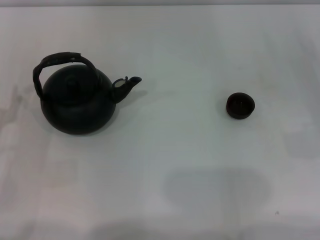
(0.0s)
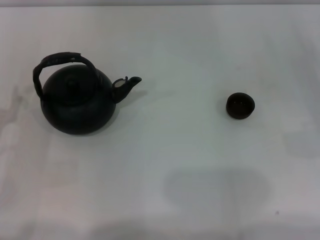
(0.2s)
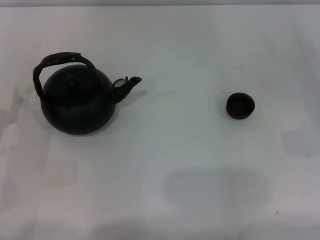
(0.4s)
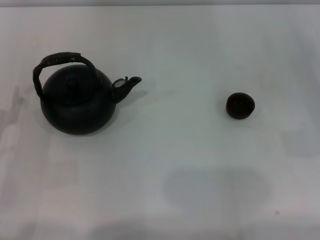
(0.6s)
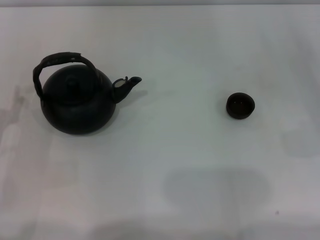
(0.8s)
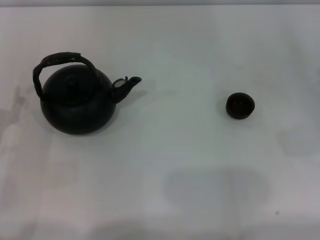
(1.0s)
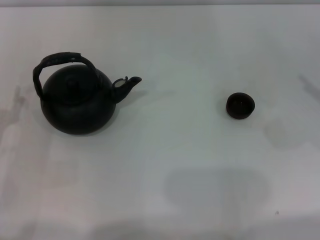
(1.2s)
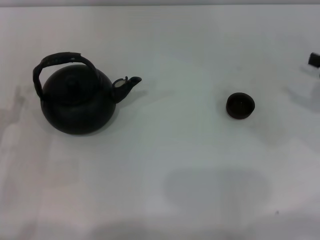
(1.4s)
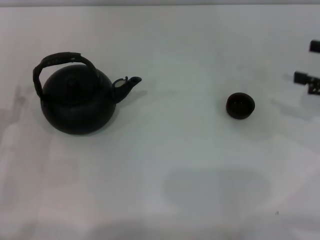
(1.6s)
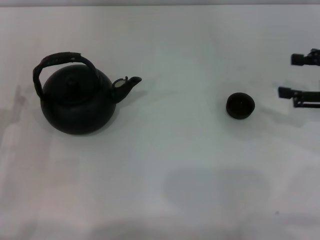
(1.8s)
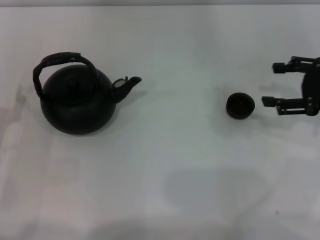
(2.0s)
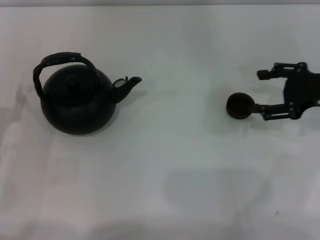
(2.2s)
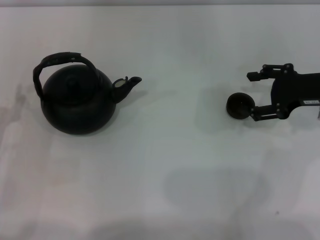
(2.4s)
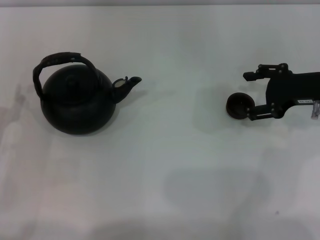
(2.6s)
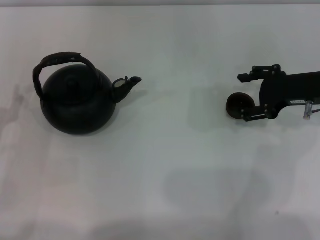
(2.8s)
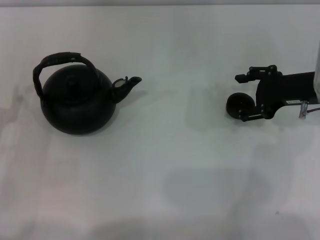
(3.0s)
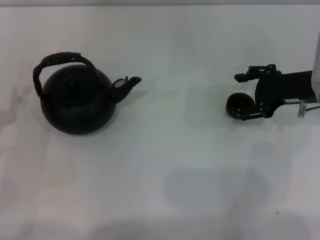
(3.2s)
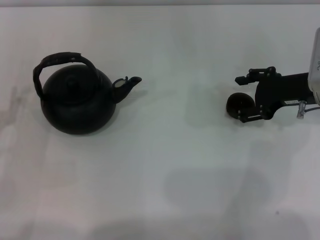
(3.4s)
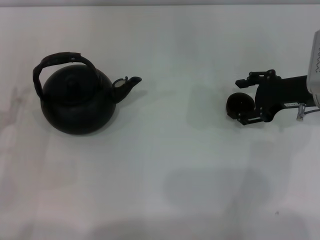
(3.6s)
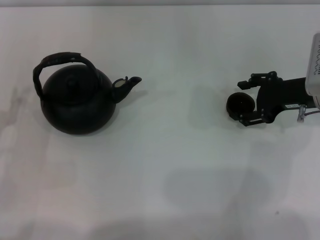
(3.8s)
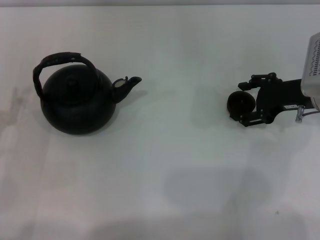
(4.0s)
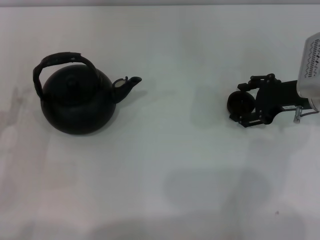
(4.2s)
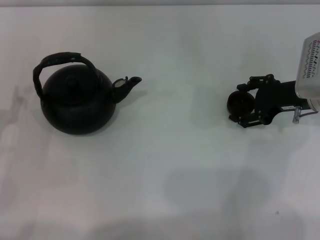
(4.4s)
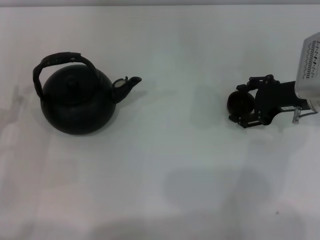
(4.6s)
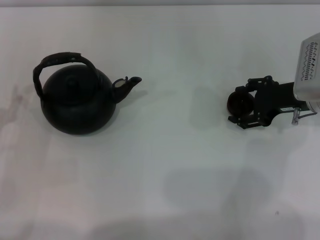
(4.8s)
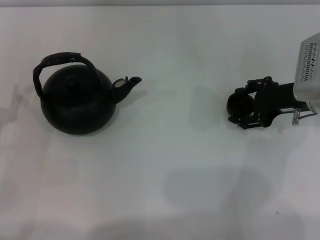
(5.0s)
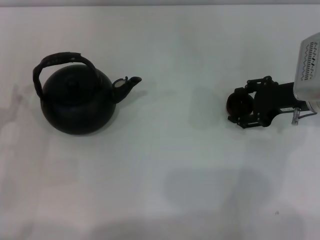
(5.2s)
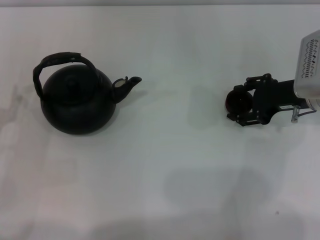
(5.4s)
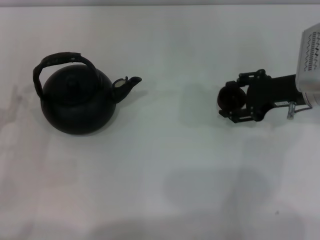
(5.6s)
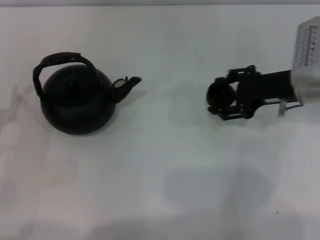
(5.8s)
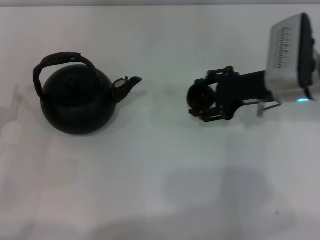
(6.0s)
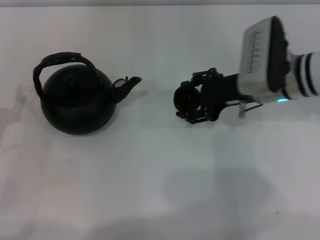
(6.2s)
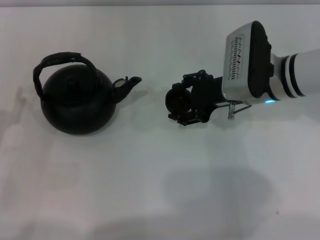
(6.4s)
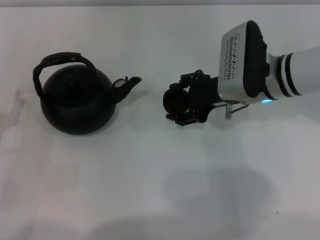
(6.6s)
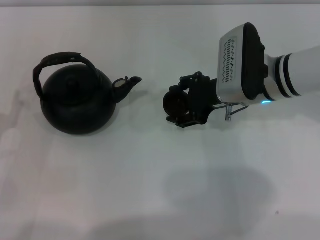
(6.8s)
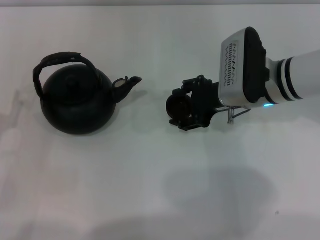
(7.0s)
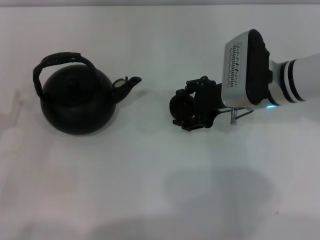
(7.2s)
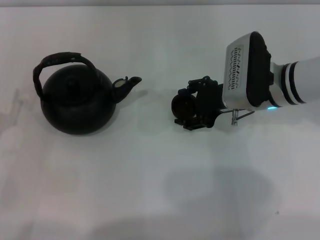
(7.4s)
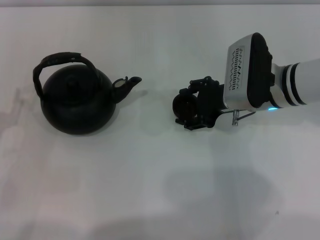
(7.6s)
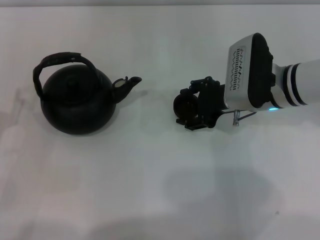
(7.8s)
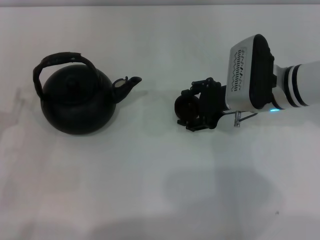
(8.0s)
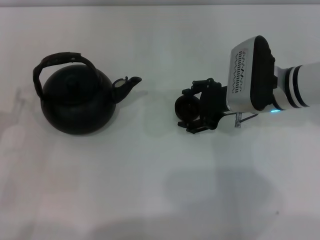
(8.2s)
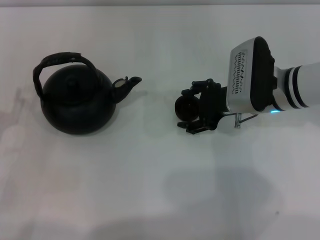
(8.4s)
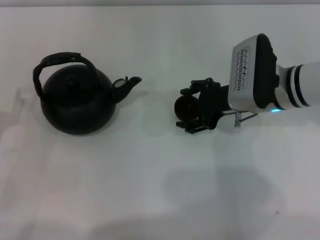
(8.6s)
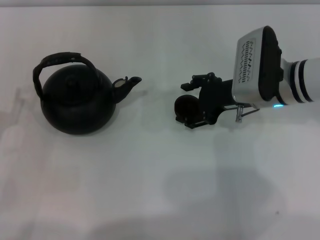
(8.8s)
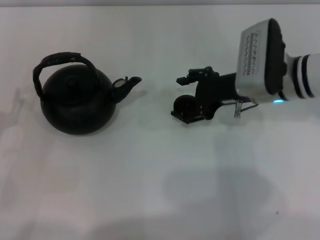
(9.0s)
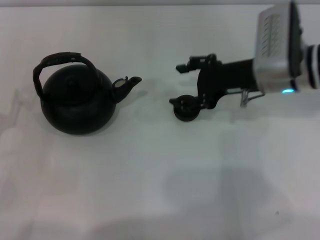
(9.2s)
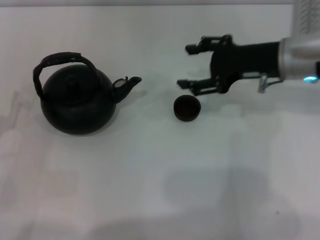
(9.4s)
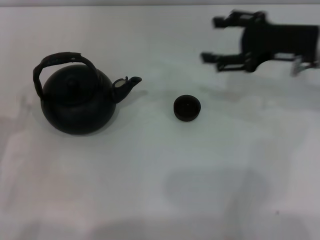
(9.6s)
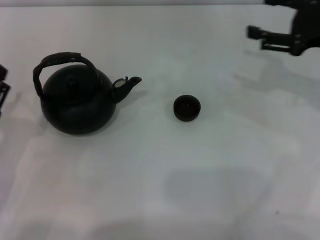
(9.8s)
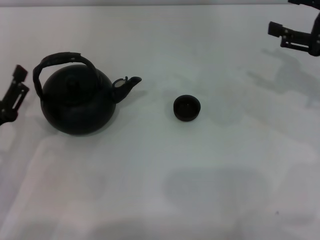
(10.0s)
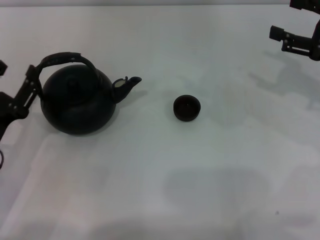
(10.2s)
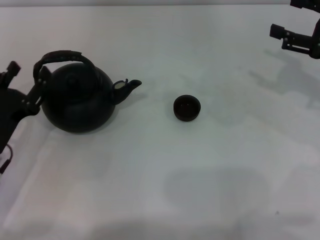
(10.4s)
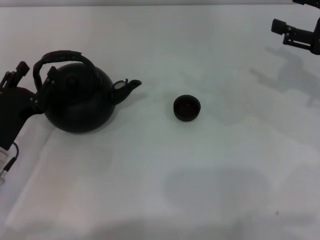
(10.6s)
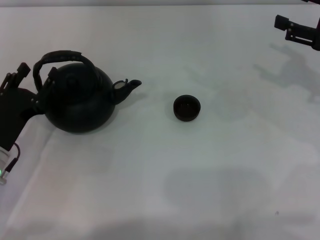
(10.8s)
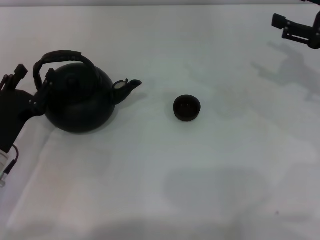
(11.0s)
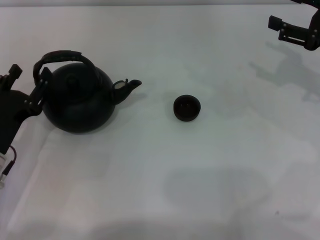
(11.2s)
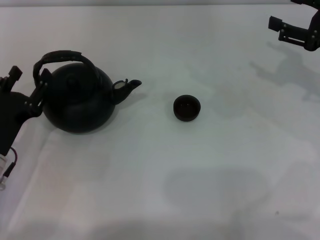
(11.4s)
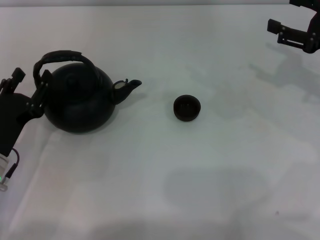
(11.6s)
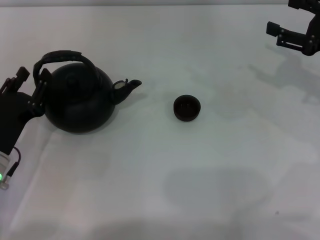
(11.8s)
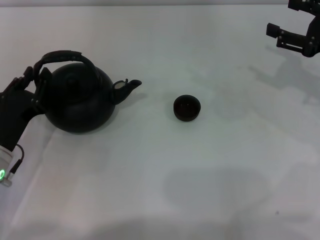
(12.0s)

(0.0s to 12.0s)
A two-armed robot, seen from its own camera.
Task of the whole recording: Grasp the handle of the teapot with one hand and pour tea into the teacup.
Step, 0.0s - 5.6s: Pick up the teacup with the right gripper.
Step, 5.8s - 9.2s: Place the teacup in the center of view with the right gripper.
0.0s - 1.6s: The right gripper travels upward by some 10 cm.
1.6s - 3.0s: The right gripper is displaced to the left and forward by approximately 10 cm.
3.0s - 4.4s: There are only small adjustments of the grippers.
4.4s - 6.0s: The right gripper goes about 5 cm to the left.
6.0s - 9.0s: There are only small adjustments of the grippers.
9.0s - 10.4s: The left gripper moves approximately 5 cm; the right gripper shifts about 15 cm to the right.
10.4s - 12.0s: The left gripper closes its fingers.

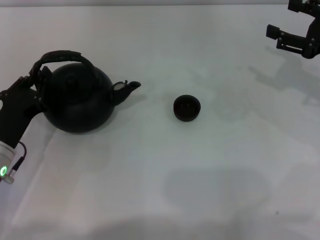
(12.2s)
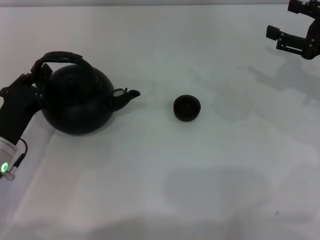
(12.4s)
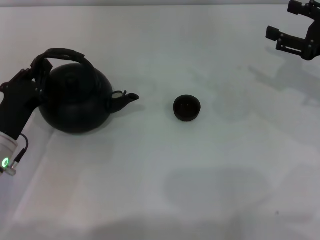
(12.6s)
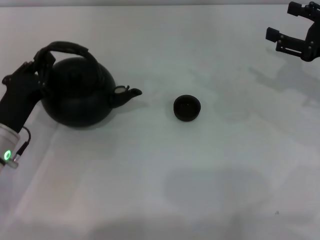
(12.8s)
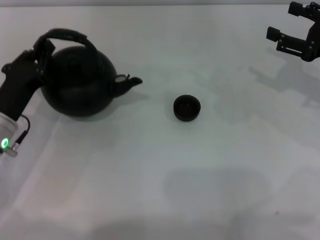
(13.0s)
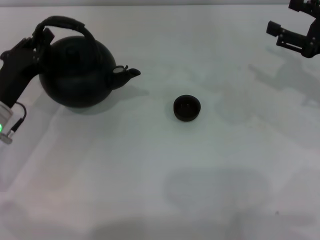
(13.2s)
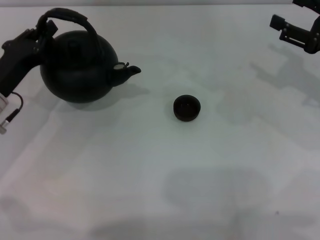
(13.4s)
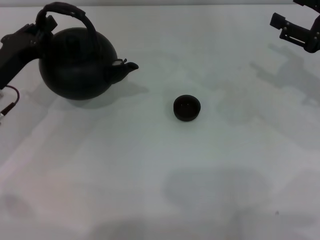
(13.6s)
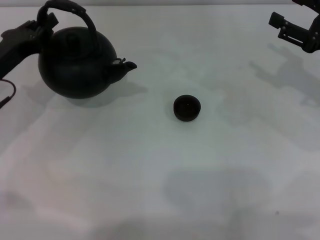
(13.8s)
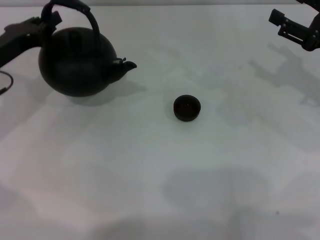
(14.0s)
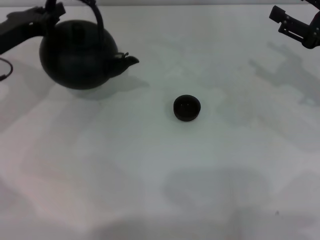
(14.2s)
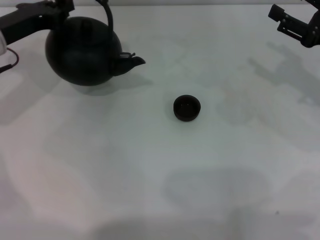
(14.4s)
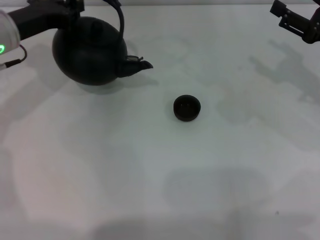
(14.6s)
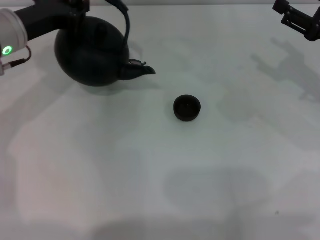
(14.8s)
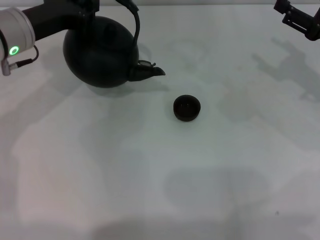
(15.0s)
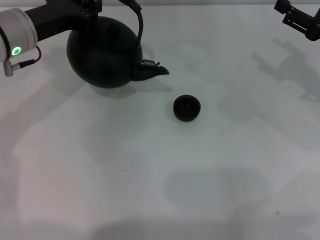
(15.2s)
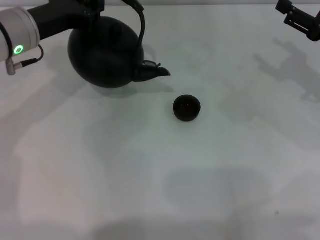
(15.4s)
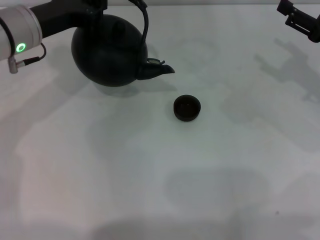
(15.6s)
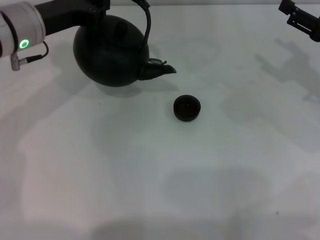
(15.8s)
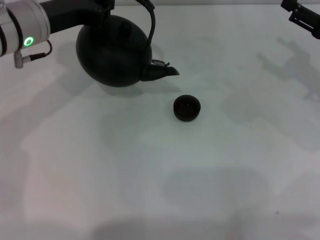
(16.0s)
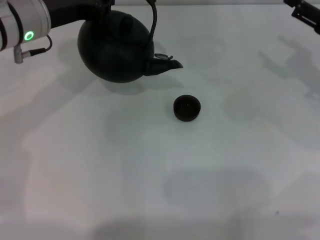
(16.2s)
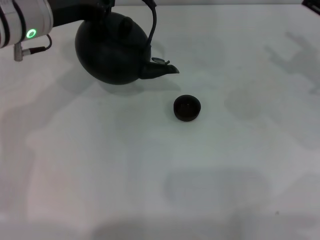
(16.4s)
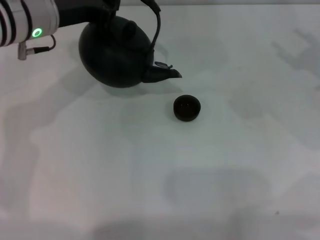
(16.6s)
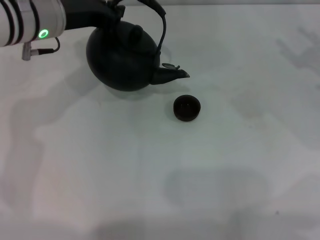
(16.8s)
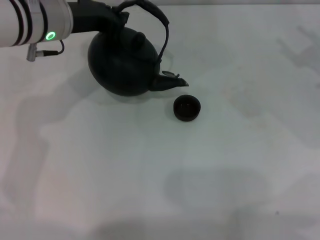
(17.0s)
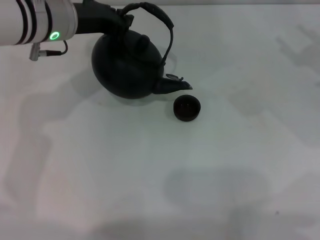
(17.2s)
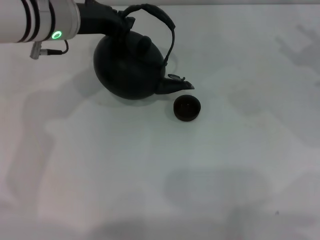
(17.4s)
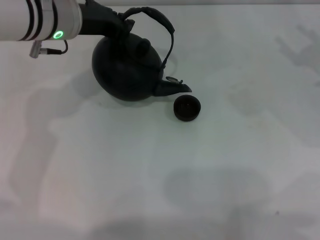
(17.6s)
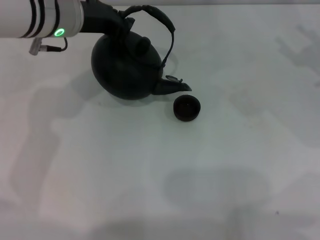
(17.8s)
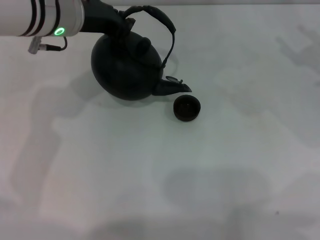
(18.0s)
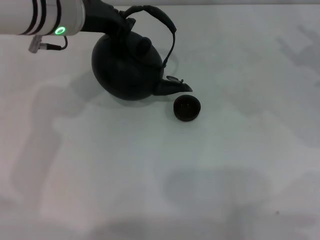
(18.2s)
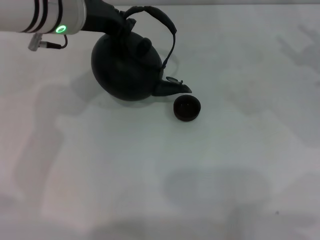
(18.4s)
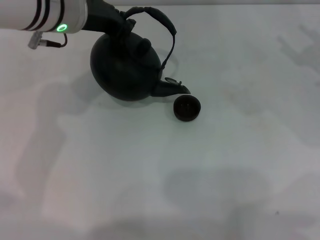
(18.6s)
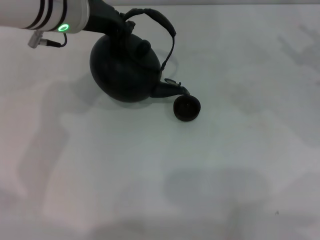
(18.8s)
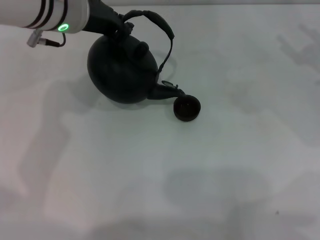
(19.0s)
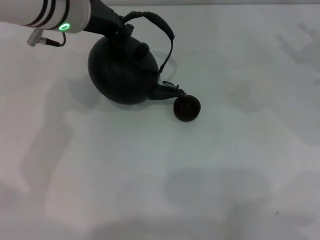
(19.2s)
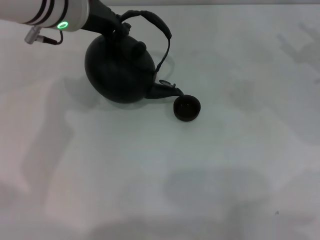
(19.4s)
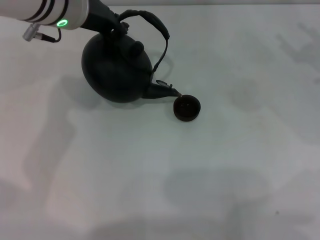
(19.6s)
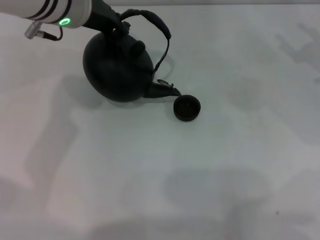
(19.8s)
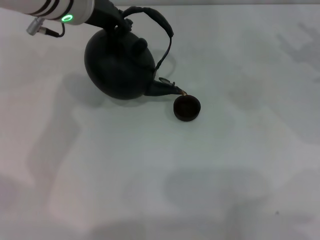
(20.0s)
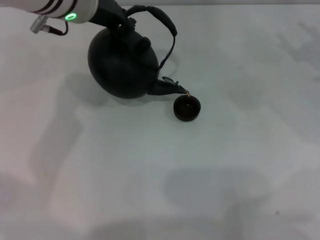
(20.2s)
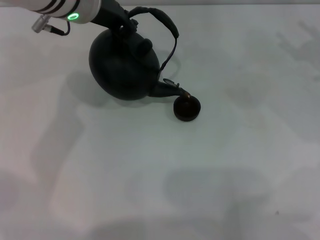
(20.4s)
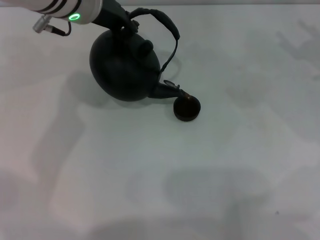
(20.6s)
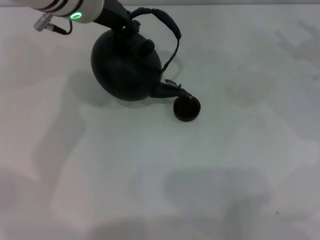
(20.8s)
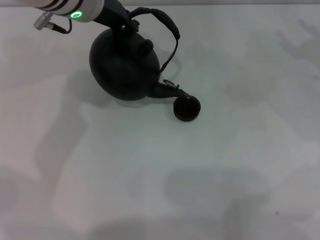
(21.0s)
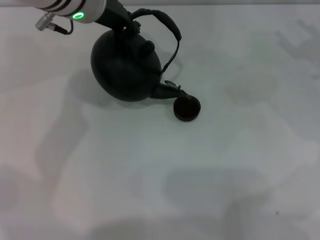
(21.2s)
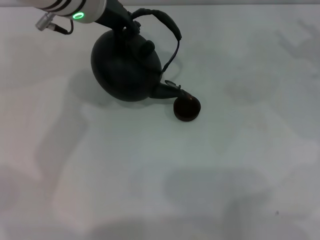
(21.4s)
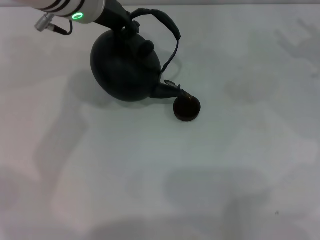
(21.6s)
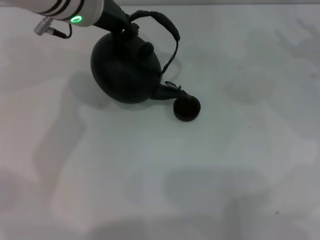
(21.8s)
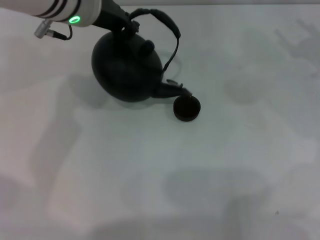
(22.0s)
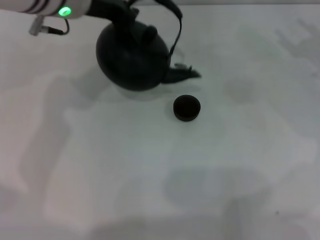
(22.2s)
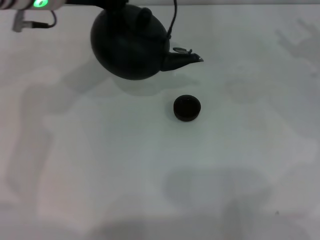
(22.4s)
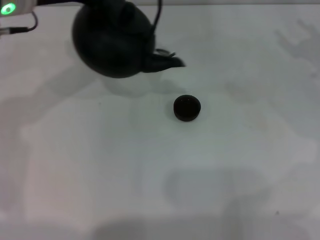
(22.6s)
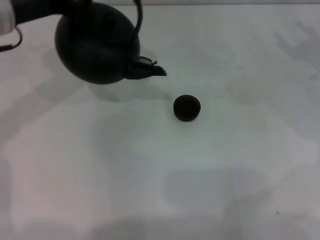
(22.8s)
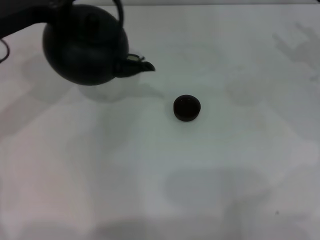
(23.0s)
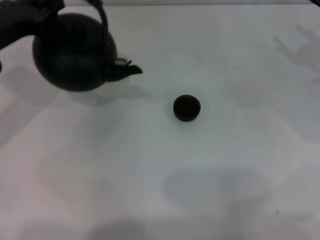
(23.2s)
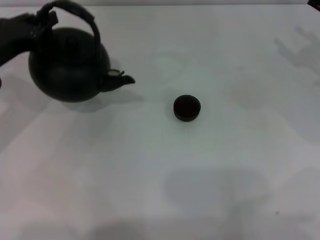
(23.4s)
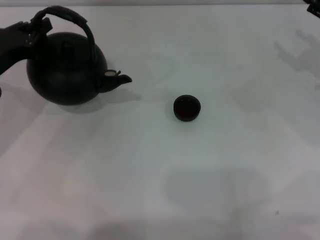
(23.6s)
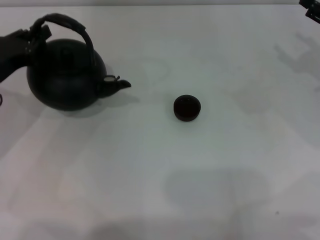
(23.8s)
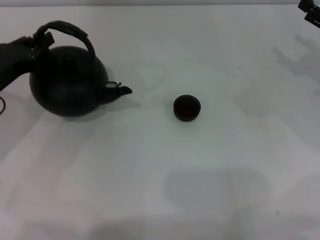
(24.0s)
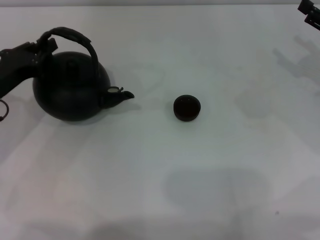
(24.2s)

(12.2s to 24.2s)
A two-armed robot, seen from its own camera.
Task of the whole recording: Grasp the handle of the teapot with one hand and pour tea into the teacup.
Step, 14.2s - 22.0s: Pour tea into the teacup with the left gripper.
12.2s - 13.8s: The left gripper goes roughly 10 cm forward and upward.
13.8s - 15.2s: The left gripper travels upward and to the right by about 10 cm.
15.2s - 16.6s: The grippers make only small movements.
16.6s - 18.2s: The grippers stay close to where they were, moving slightly.
18.2s - 21.2s: The grippers move only a little.
21.2s - 22.6s: The left gripper goes about 10 cm to the left.
22.6s - 24.2s: The left gripper moves downward, to the left and backward, about 20 cm.
